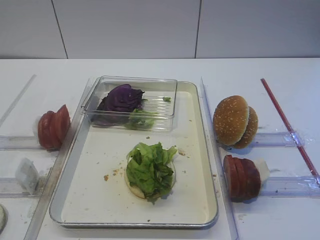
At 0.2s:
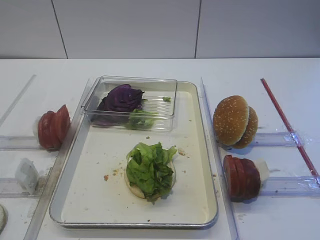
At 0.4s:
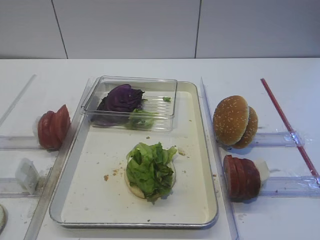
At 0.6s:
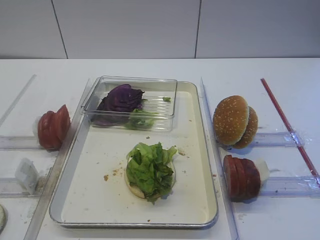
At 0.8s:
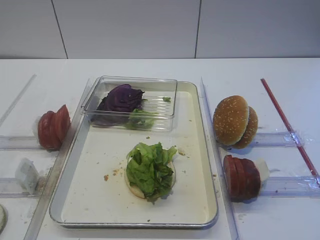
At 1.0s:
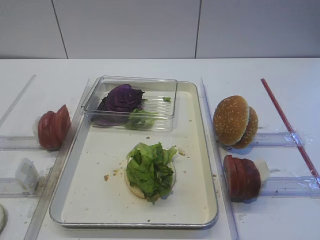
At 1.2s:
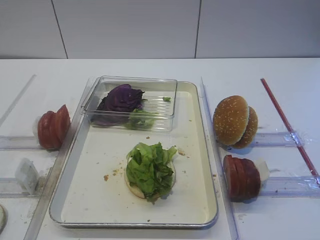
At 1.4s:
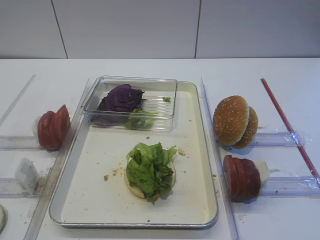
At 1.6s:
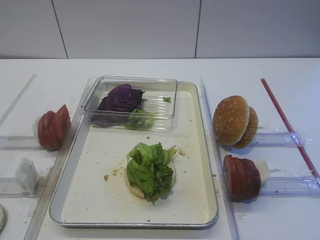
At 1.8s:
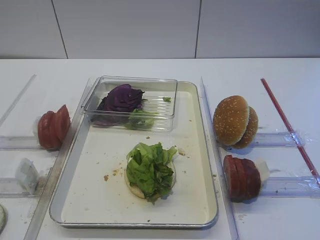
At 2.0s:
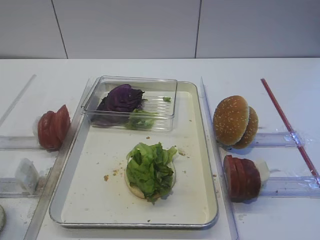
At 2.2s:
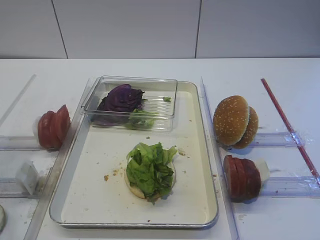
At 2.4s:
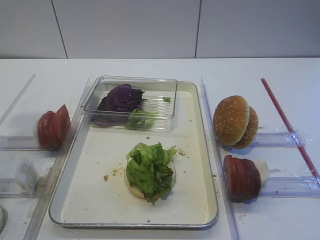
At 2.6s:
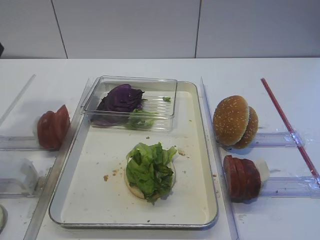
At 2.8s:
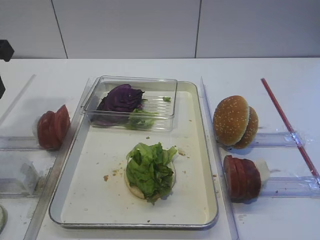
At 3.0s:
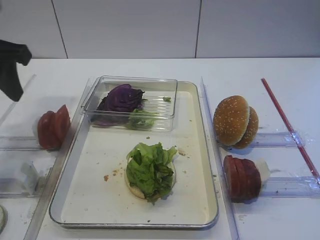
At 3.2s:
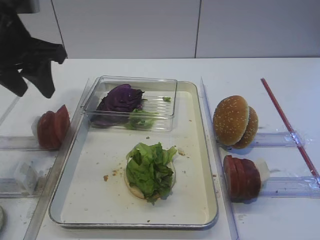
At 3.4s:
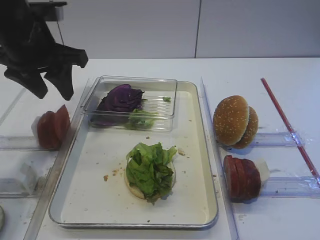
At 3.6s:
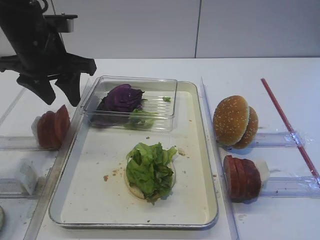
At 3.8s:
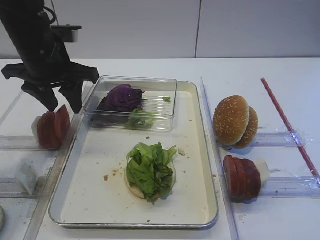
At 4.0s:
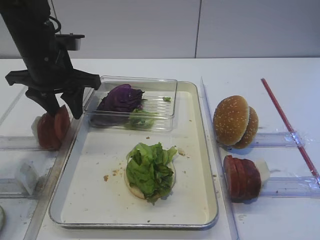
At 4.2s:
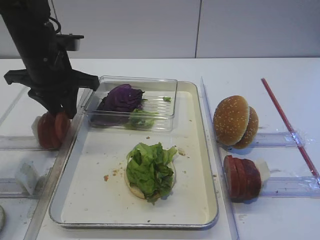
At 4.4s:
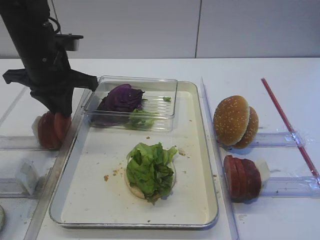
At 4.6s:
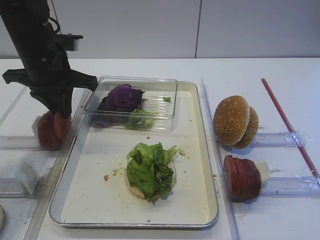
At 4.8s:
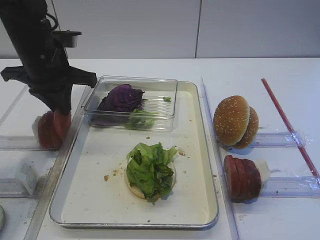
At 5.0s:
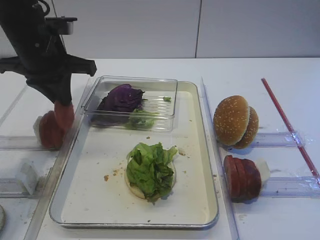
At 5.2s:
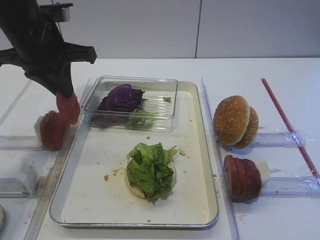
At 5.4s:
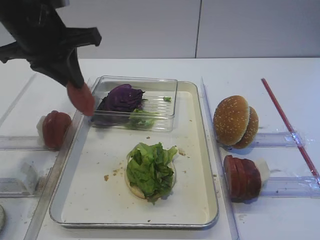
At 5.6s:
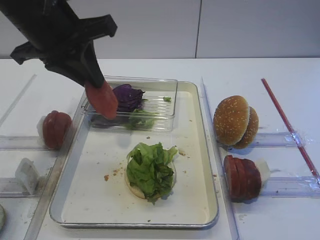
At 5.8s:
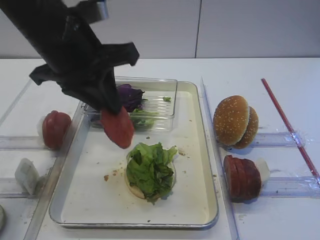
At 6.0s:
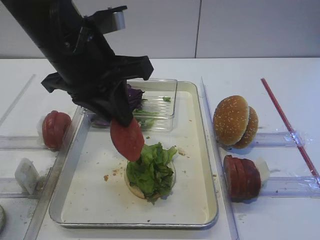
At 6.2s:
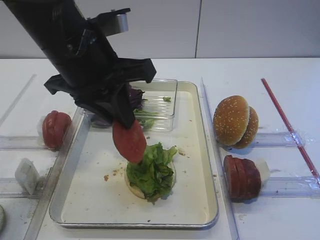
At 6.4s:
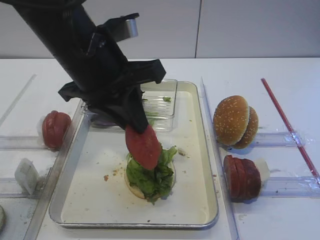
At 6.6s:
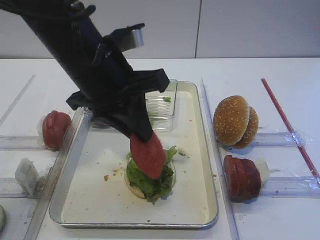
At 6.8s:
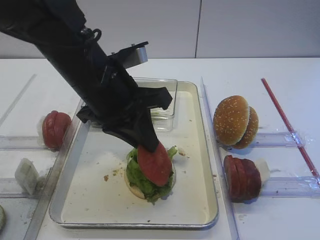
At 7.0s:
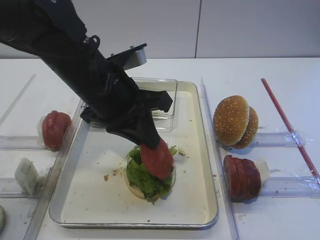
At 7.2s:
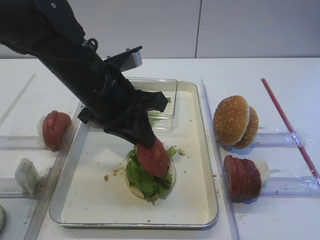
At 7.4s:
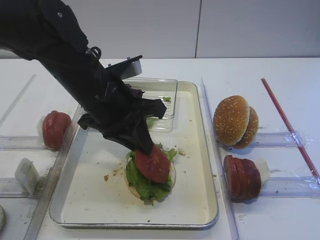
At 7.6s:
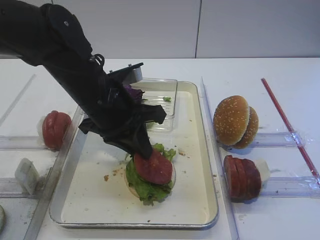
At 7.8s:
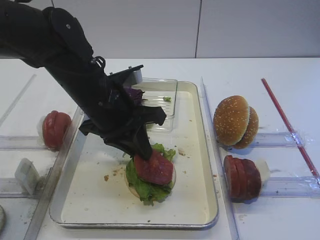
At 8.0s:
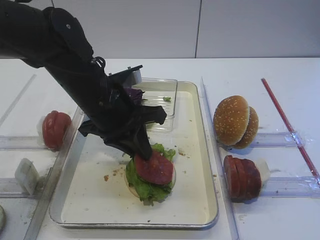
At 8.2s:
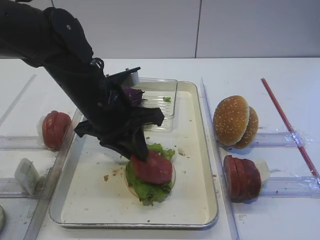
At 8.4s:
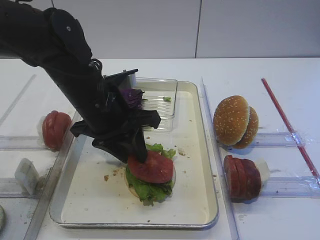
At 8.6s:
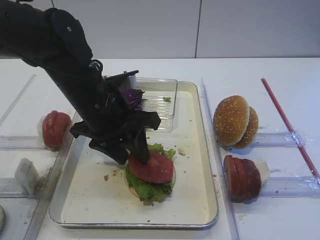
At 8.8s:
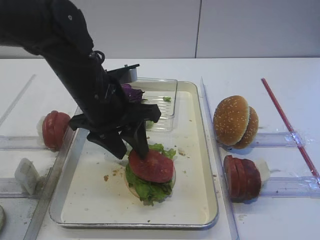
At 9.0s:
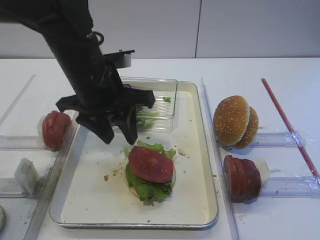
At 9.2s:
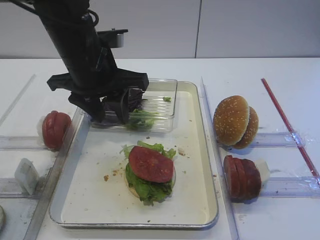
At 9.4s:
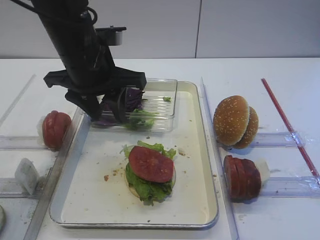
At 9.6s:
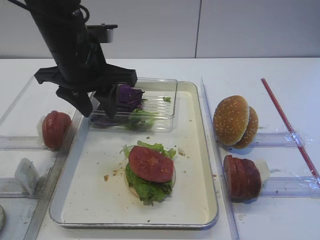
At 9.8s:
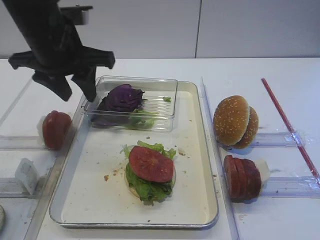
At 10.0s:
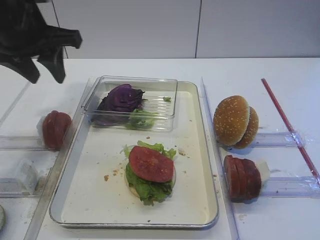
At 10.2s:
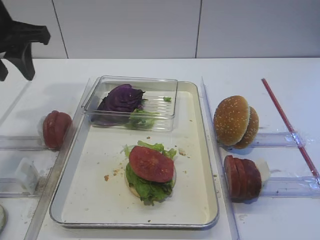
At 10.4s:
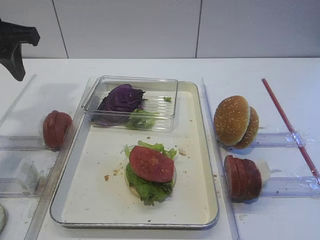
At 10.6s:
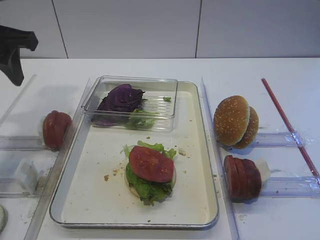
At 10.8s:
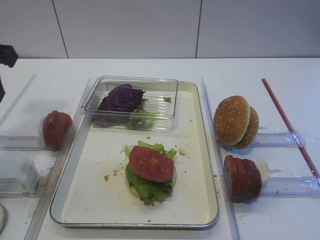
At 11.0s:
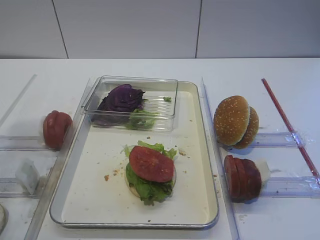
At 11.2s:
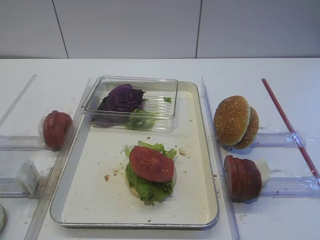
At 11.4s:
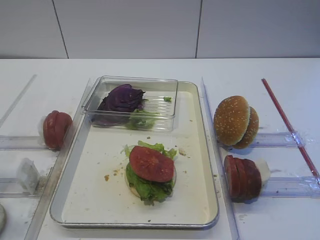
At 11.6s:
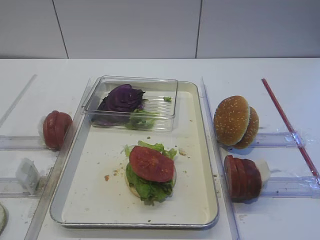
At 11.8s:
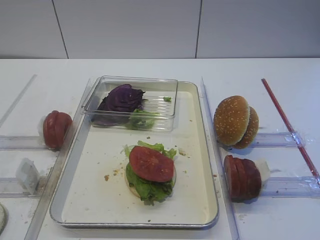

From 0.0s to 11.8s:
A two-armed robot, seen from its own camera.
Step, from 0.0s to 5.0s: Pick up the tomato slice with the left gripper.
Step, from 5.2s to 8.8s: Place the tomato slice on the lettuce leaf with the left gripper.
From 1.4s to 3.0s: The left gripper goes about 30 cm forward.
From 3.0s to 4.4s: The left gripper shifts some 15 cm forward, downward and to the right, and closes up.
From 4.4s to 6.0s: The left gripper goes some 15 cm backward, to the right and upward.
From 6.0s to 7.4s: The left gripper moves downward, roughly 10 cm.
From 7.4s to 8.8s: The left gripper opens up.
From 8.8s to 10.4s: The left gripper shifts approximately 20 cm to the left and upward.
From 10.4s to 11.8s: The left gripper moves backward, about 30 cm.

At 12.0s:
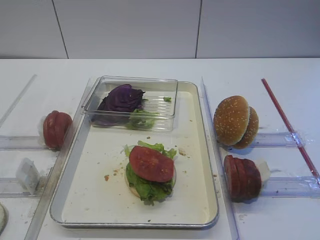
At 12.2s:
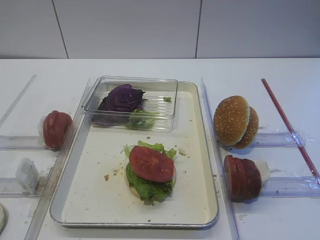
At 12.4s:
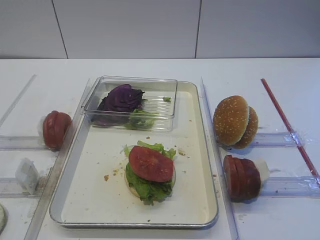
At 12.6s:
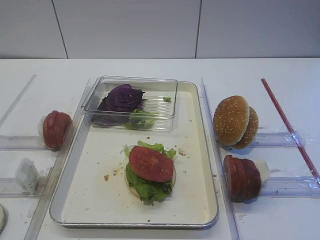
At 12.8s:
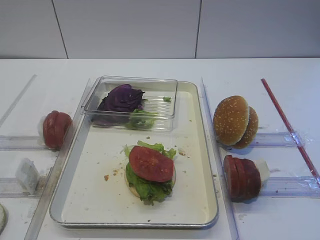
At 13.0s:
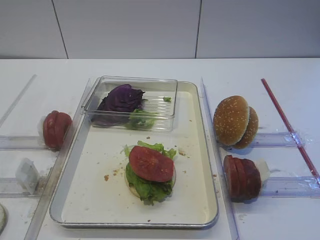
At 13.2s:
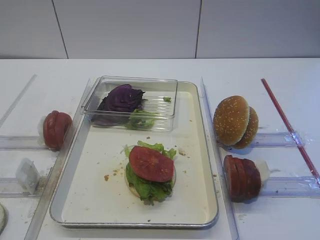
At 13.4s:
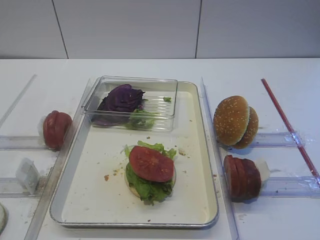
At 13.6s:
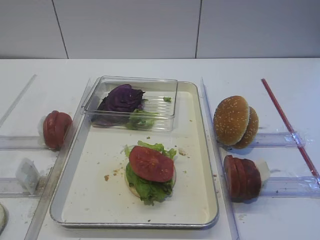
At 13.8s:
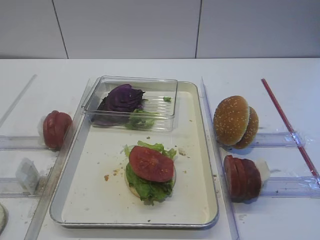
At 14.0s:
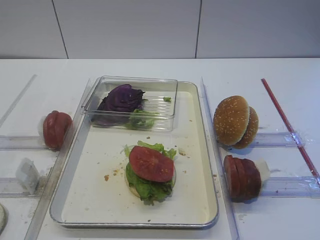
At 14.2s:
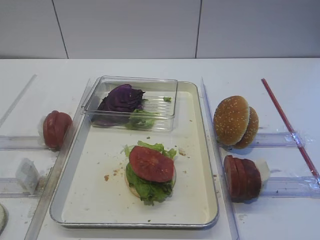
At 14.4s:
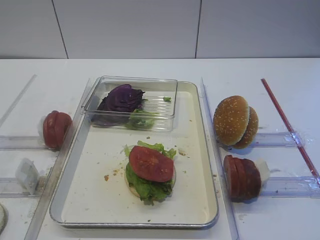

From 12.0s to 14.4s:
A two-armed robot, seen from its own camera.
From 13.2s to 14.4s: Both grippers stay put.
